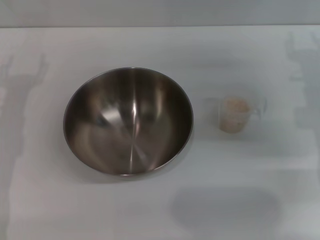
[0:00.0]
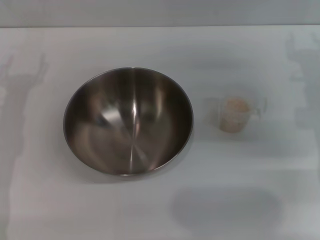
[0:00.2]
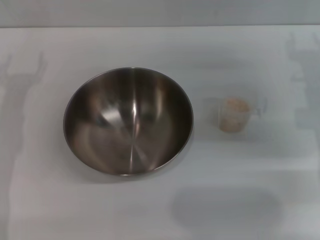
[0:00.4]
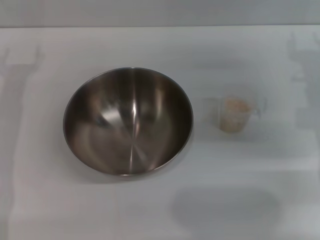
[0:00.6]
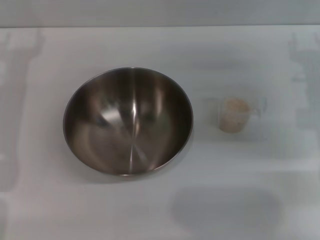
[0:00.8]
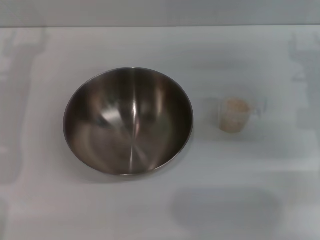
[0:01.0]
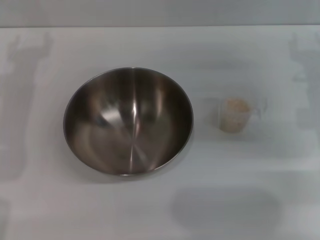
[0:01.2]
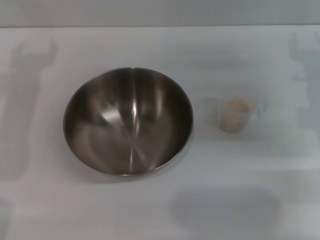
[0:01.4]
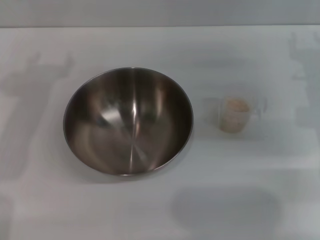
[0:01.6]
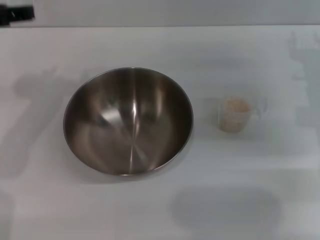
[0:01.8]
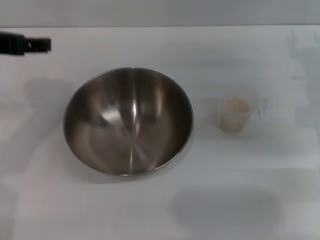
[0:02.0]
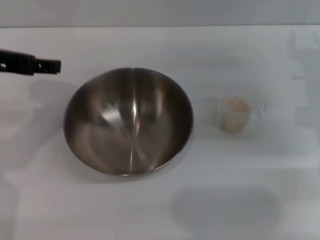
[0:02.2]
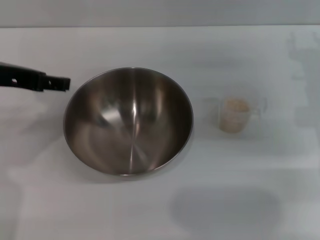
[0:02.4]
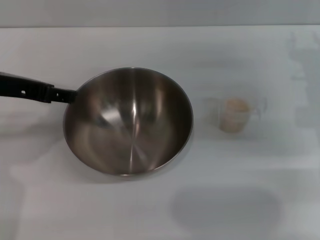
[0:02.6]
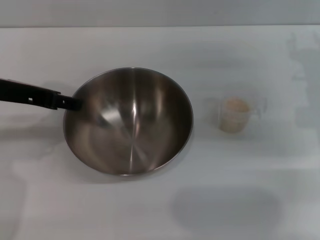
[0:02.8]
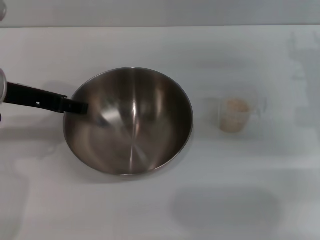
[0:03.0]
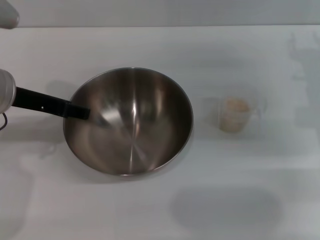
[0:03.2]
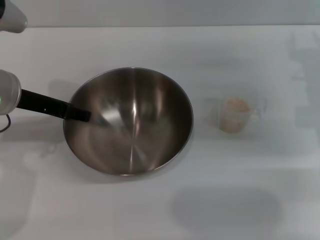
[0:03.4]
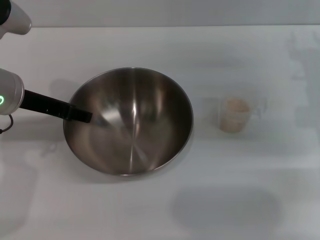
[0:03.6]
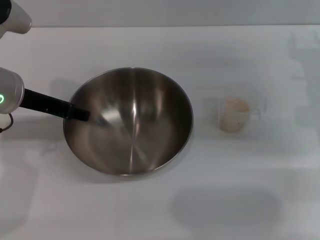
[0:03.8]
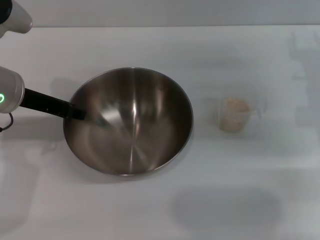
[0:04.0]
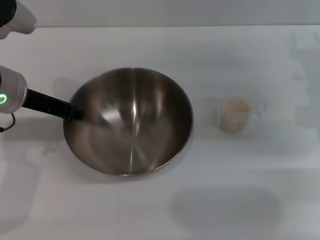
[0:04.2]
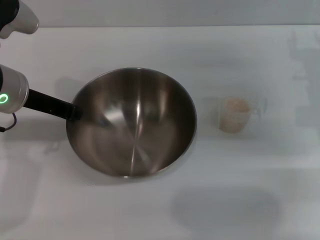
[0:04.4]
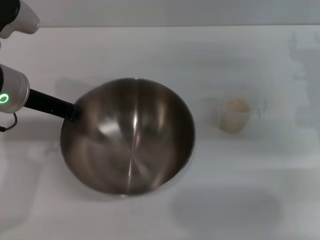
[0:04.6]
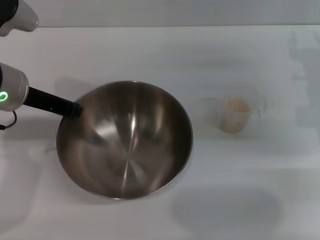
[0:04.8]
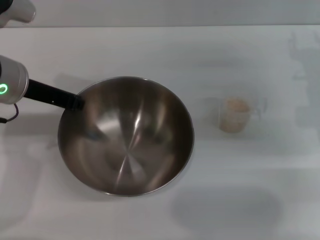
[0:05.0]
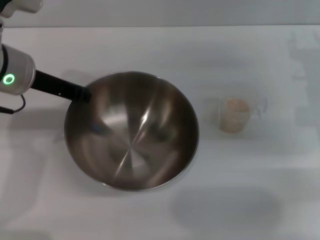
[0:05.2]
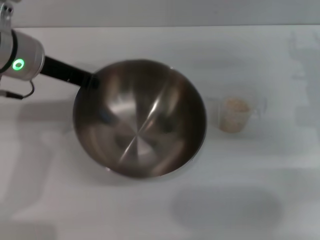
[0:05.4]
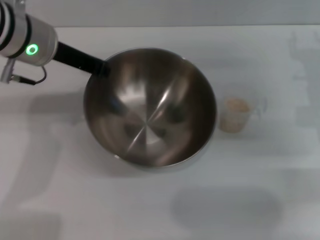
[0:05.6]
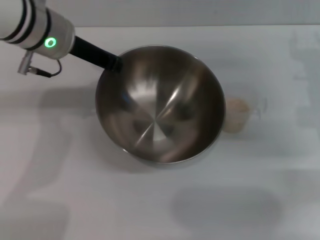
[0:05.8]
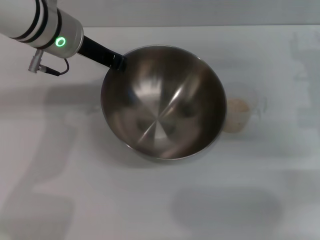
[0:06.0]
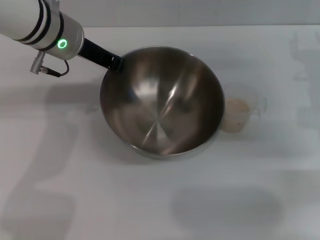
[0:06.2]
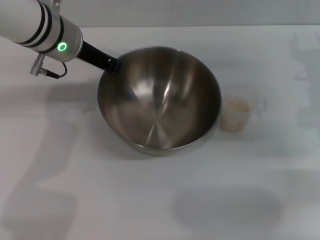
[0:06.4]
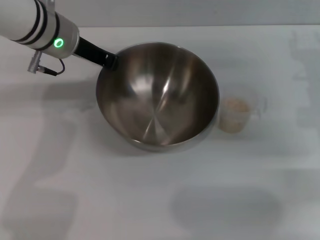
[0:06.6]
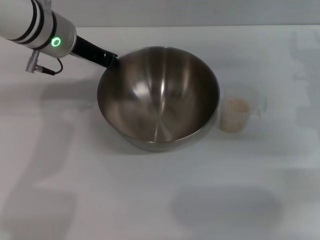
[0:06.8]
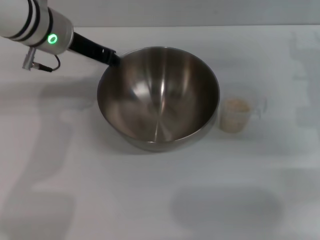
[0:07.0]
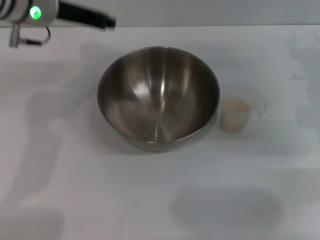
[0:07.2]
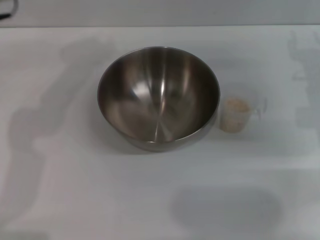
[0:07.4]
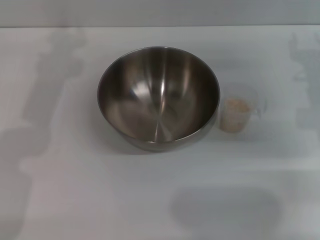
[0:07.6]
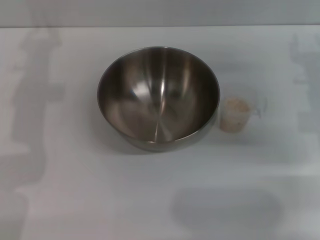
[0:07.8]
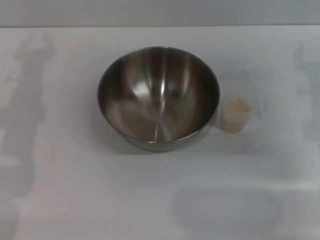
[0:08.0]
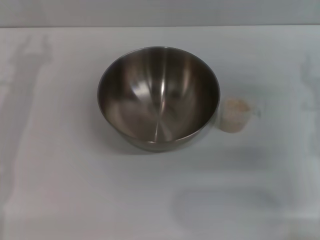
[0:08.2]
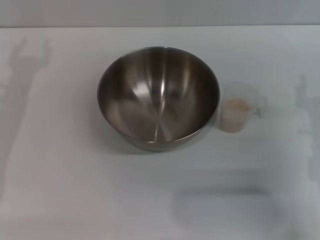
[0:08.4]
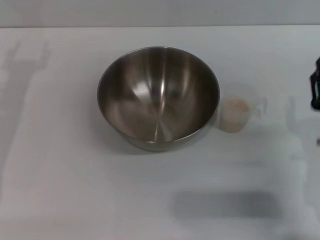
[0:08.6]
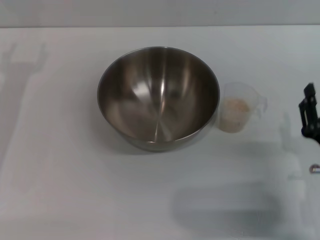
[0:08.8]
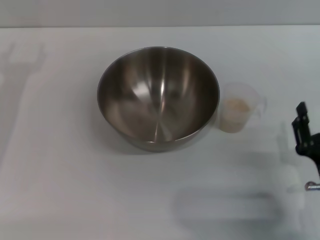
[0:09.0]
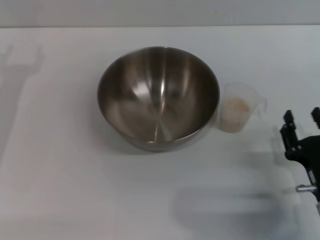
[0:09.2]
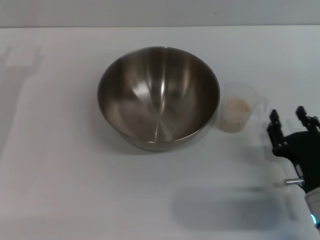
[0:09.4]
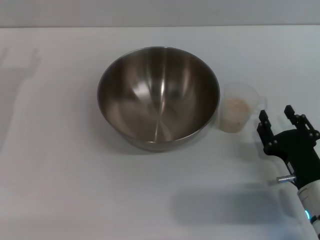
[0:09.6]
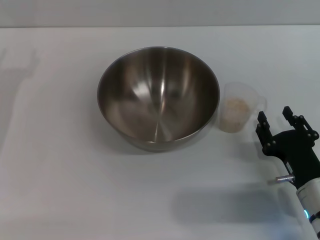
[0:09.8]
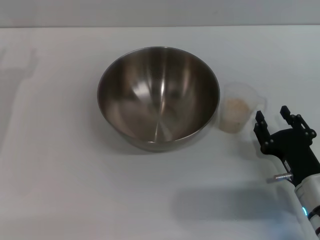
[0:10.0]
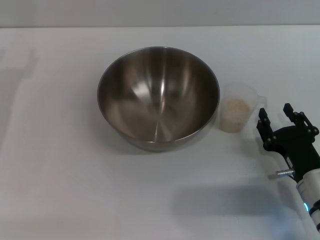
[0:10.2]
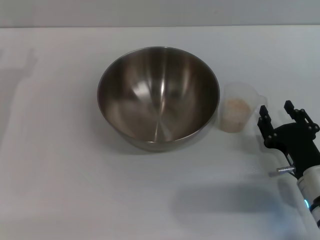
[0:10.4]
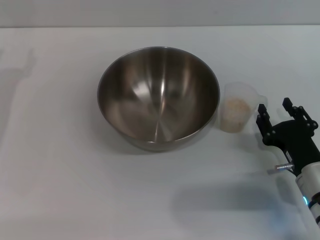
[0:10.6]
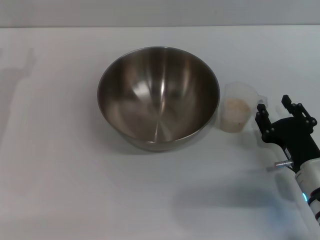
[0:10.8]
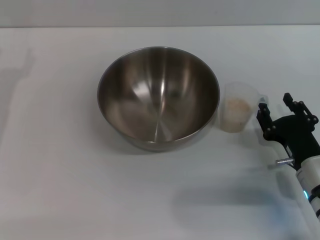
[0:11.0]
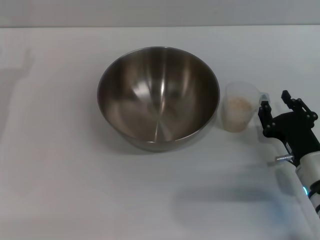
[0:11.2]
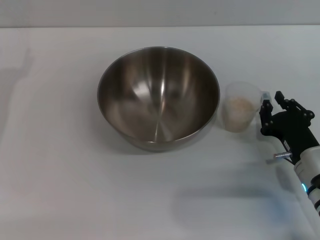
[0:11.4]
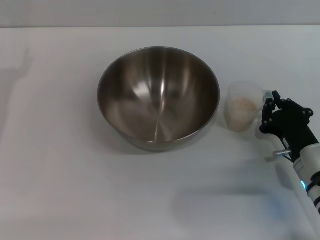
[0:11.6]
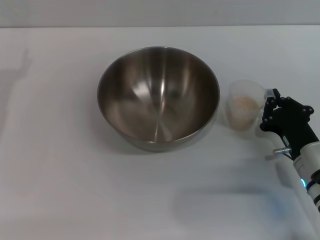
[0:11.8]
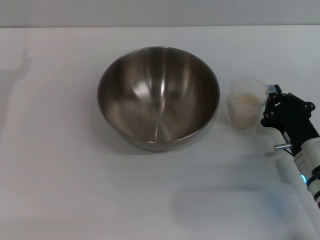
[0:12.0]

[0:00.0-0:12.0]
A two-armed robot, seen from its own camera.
Task of the whole recording: Place the bowl in the middle of the table with one hand and pour the rice from the grain cup into it with the other hand.
Step, 0:00.0 to 0:05.4: Pick up the bowl with the left gripper.
Step, 0:05.6 to 0:07.0: Place the bowl in the center of view with the left gripper.
0:01.6 to 0:03.0: The left gripper moves downward, approximately 5 cm.
0:03.0 to 0:04.4: The left gripper closes its fingers.
0:04.4 to 0:06.0: The left gripper shifts approximately 10 cm forward and to the right.
0:06.0 to 0:07.6: The left gripper moves to the left, about 10 cm.
0:07.6 to 0:09.0: The right gripper is displaced backward and downward by roughly 20 cm.
0:09.0 to 0:10.4: The right gripper heads forward, covering approximately 5 cm.
0:10.4 to 0:12.0: The right gripper closes its fingers.

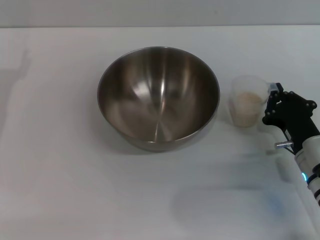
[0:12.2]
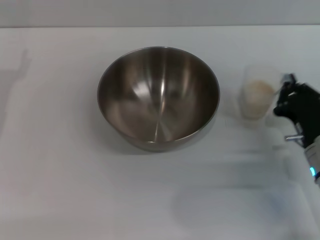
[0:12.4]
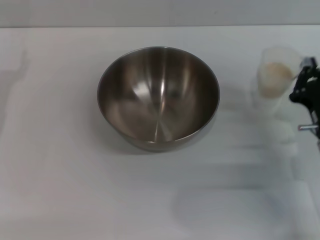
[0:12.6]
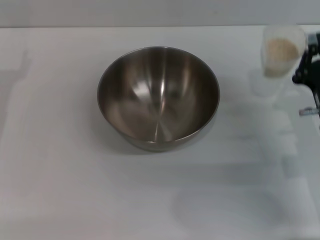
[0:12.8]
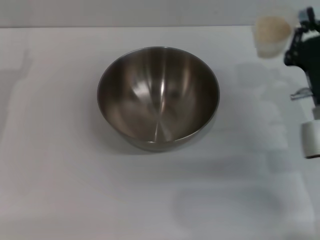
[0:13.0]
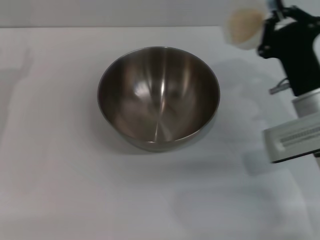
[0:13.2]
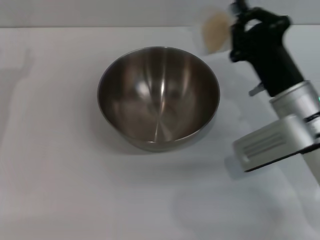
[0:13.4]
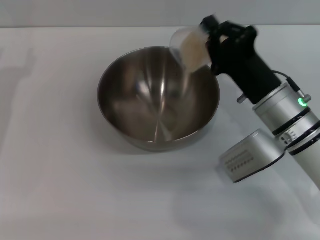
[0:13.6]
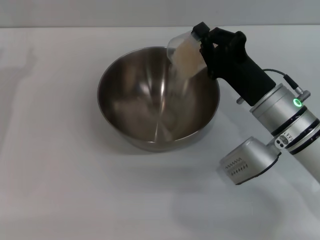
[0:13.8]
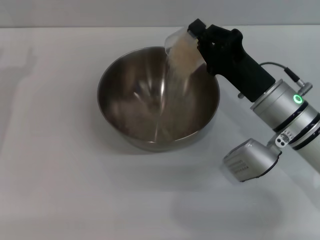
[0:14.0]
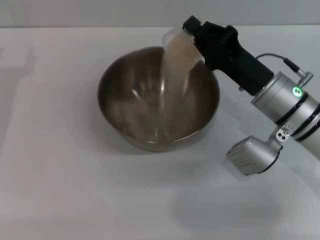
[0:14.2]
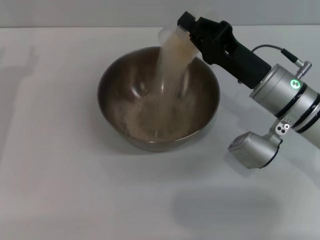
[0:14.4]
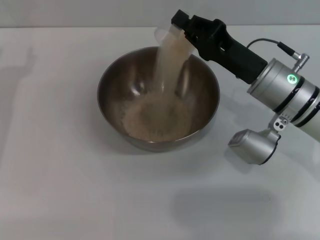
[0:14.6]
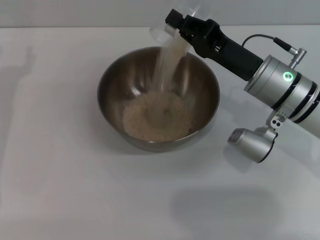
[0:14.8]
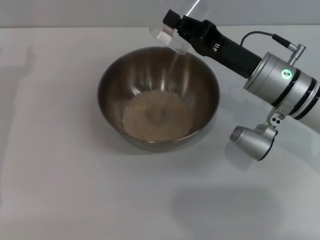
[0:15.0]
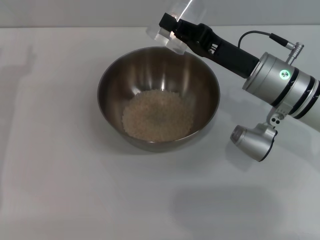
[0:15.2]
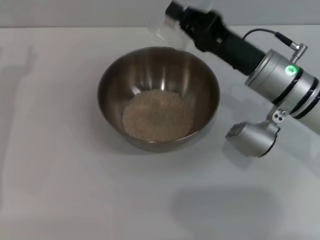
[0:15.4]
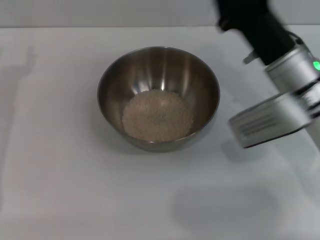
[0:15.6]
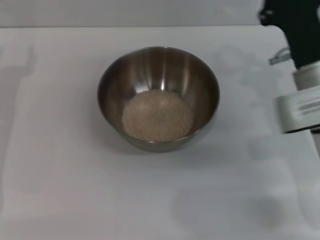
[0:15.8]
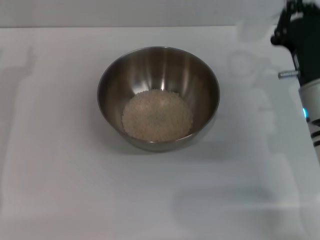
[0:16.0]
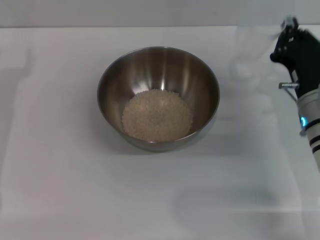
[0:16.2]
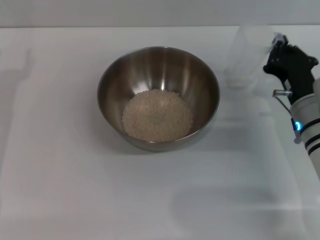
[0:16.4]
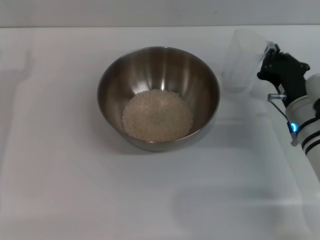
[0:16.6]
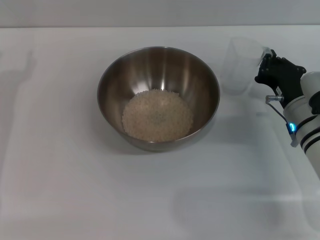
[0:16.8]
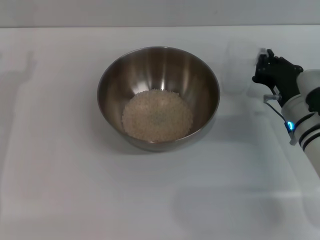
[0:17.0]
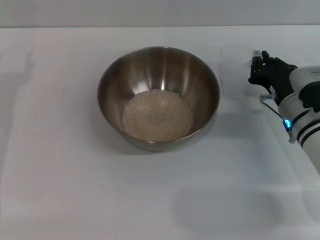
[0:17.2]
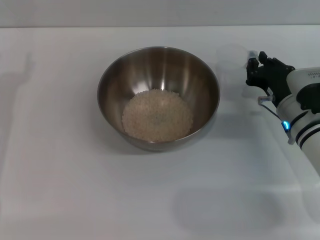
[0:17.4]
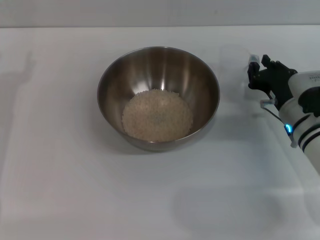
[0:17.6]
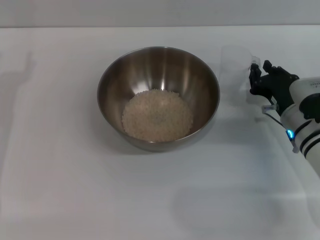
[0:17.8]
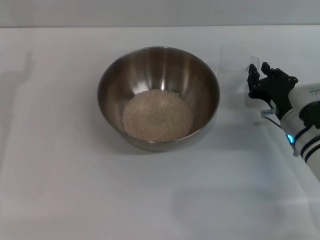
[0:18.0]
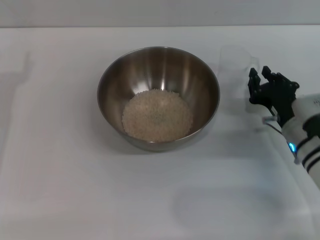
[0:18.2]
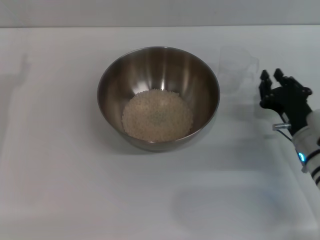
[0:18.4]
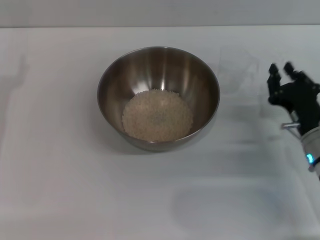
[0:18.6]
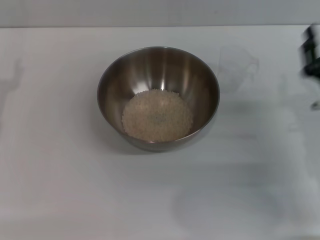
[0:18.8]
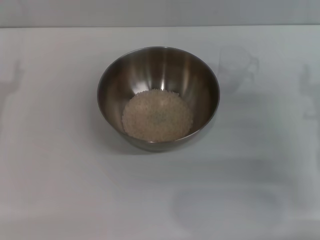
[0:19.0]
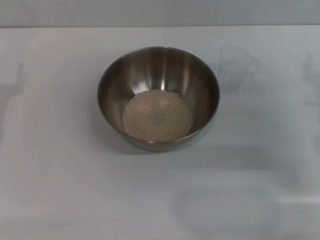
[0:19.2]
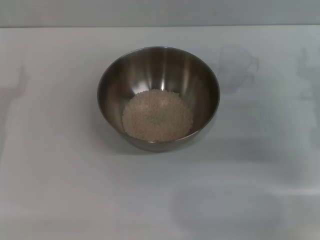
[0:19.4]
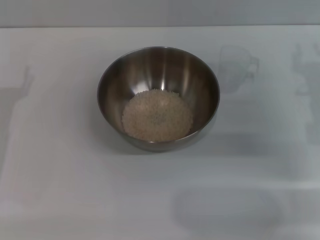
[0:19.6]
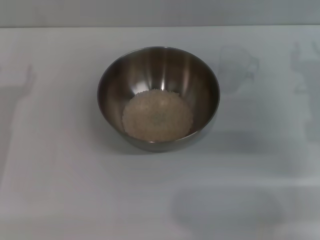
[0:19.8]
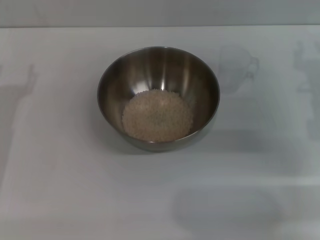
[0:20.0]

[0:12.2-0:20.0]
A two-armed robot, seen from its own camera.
Task of the whole recording: Place the bowl in the middle of the table with one hand and pour the rice from the grain cup into it with the other hand.
Step, 0:13.0 to 0:15.2: Pour the rice from the cup into the bowl with the right gripper.
Step, 0:15.4 to 0:18.4: Place the cup on the table with the right gripper.
0:12.2 to 0:13.8: The right gripper is displaced upward, forward and to the left by approximately 10 cm.
0:13.8 to 0:15.4: The right gripper shifts by some 5 cm.
0:15.4 to 0:16.8: The right gripper goes approximately 10 cm downward and to the right.
0:16.8 to 0:18.4: The right gripper opens.
0:18.4 to 0:20.0: The left gripper moves about 5 cm, while the right gripper is displaced upward and forward by approximately 10 cm.
